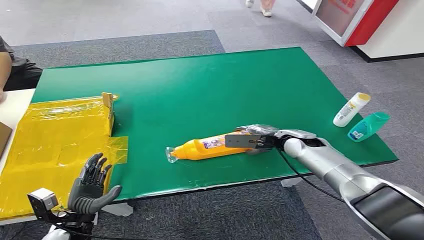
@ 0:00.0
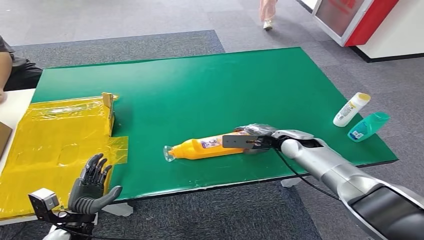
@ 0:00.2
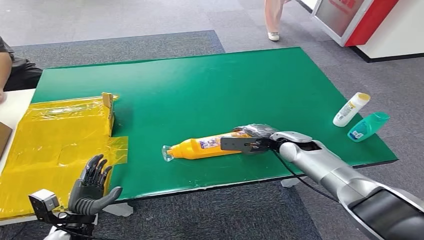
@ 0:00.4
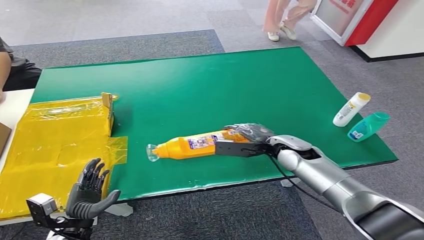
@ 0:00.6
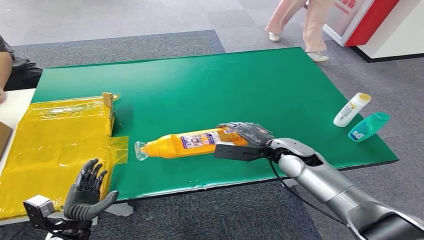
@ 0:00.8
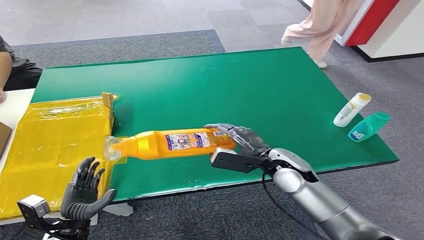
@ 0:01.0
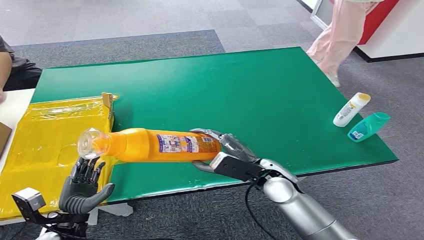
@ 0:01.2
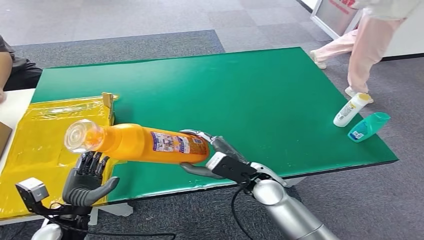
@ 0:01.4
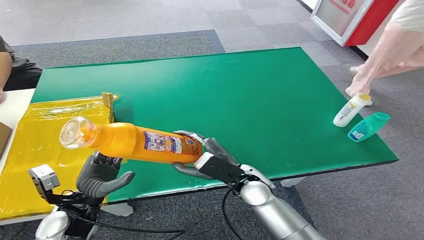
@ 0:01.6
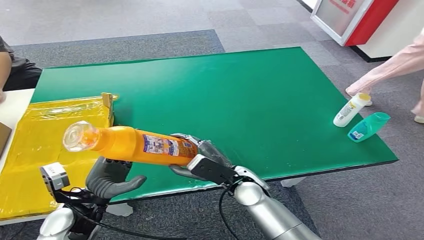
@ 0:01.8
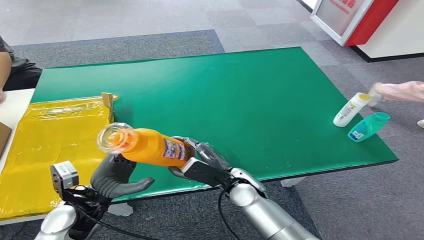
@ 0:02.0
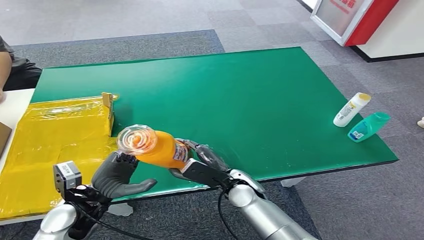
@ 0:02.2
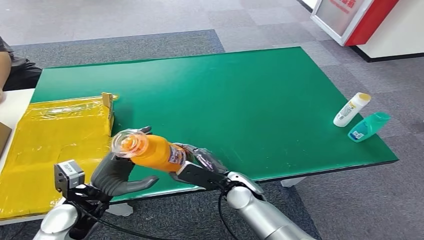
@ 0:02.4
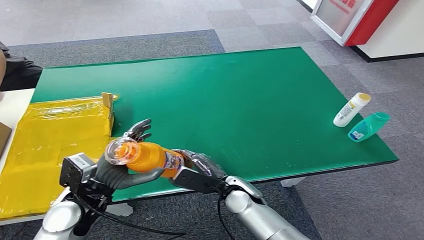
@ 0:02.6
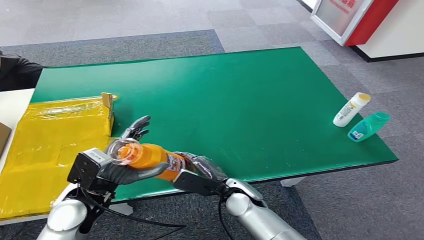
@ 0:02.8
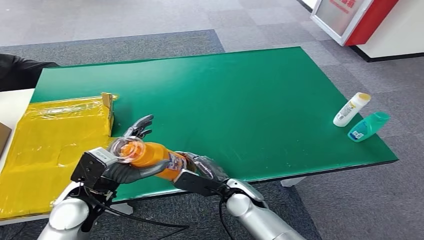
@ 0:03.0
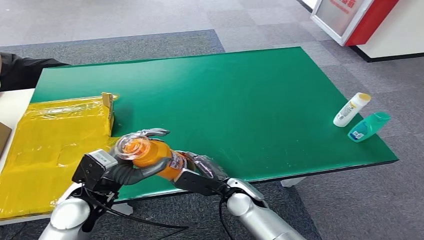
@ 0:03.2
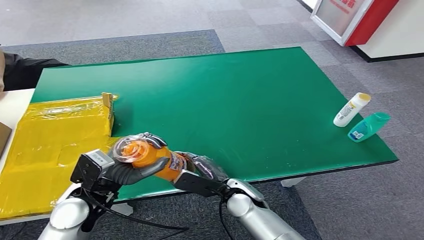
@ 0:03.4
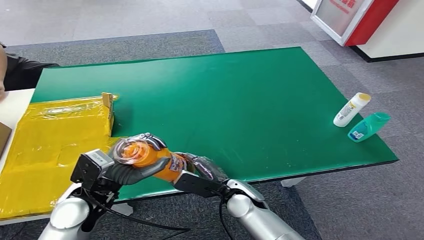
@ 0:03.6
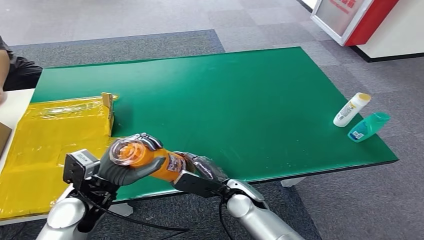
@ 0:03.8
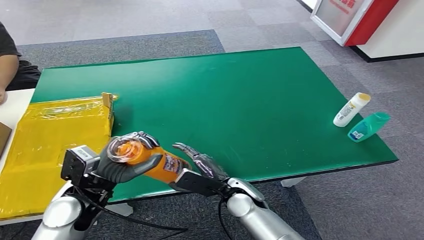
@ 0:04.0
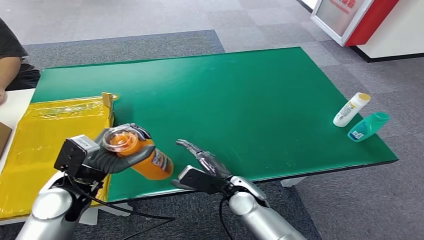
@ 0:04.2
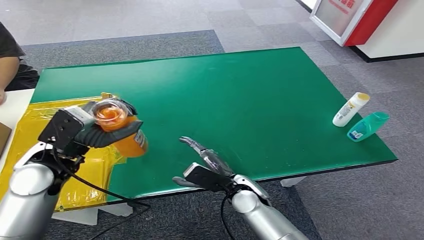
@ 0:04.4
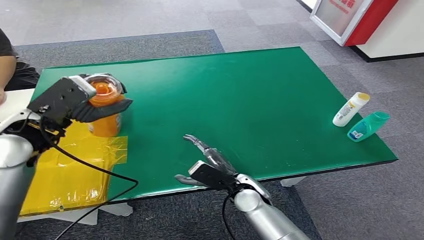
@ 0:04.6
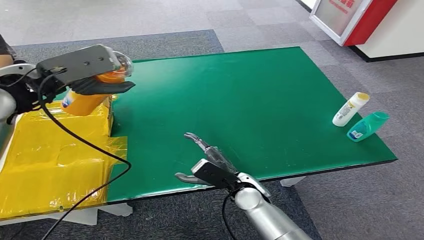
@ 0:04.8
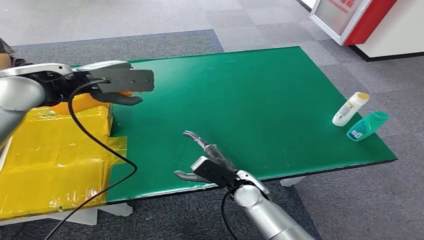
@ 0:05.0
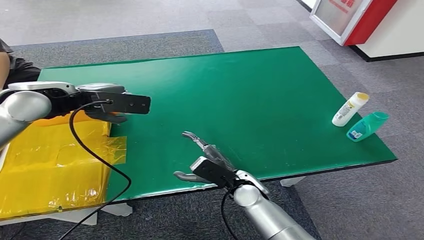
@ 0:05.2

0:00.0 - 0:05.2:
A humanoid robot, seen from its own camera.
Step, 0:00.0 - 0:01.2: Pick up the bottle from the table.
Step, 0:01.4 - 0:05.2: Turn the bottle to the front side.
0:01.8 - 0:03.4: The left hand travels upward by roughly 5 cm, while the right hand changes place by roughly 5 cm.
0:03.4 - 0:05.2: The left hand is displaced upward and forward by approximately 25 cm.

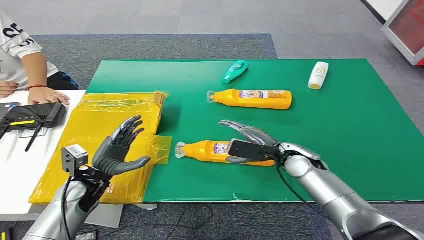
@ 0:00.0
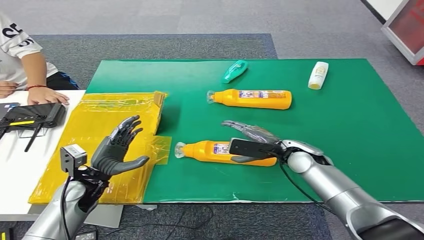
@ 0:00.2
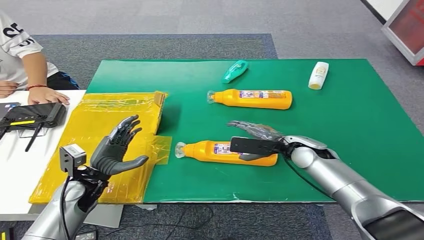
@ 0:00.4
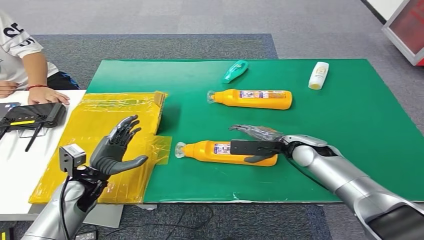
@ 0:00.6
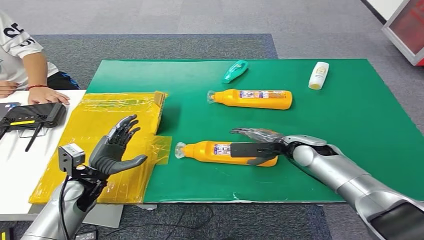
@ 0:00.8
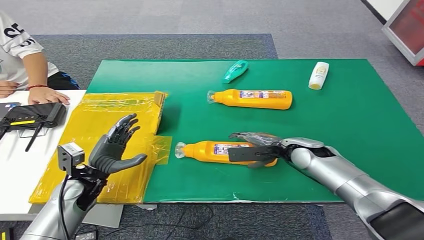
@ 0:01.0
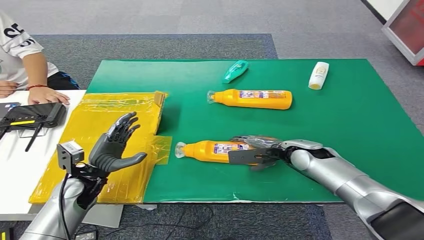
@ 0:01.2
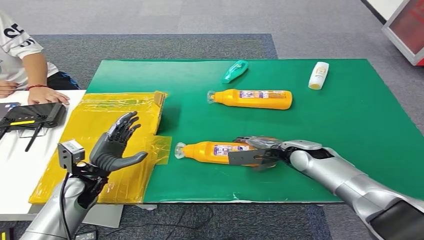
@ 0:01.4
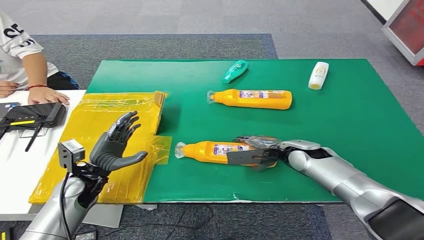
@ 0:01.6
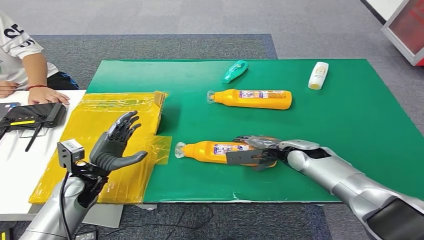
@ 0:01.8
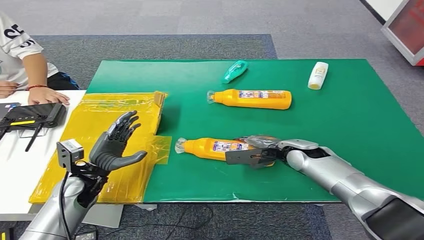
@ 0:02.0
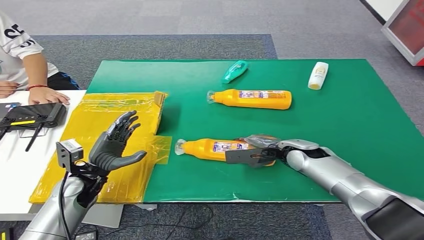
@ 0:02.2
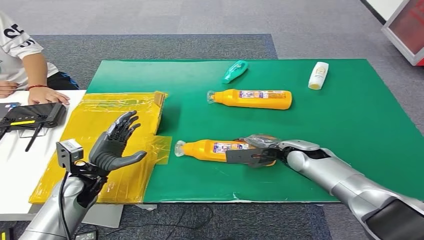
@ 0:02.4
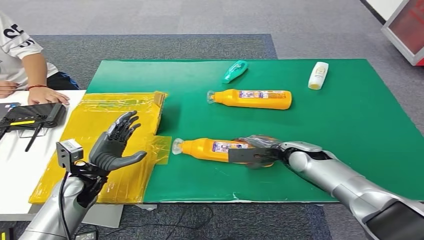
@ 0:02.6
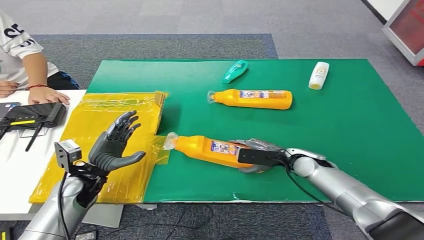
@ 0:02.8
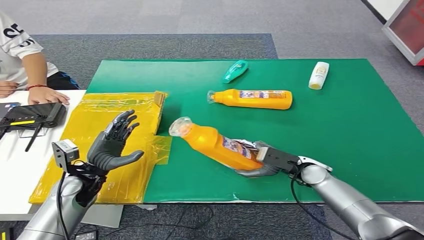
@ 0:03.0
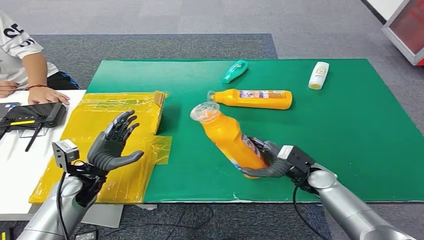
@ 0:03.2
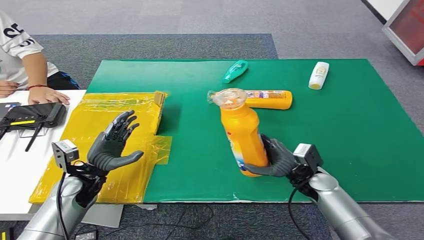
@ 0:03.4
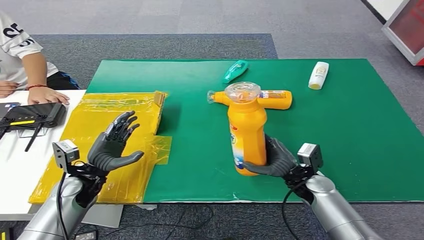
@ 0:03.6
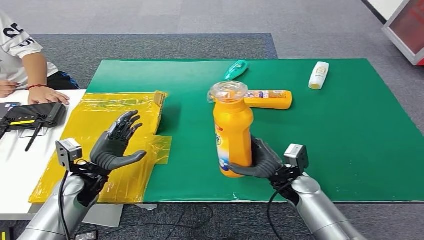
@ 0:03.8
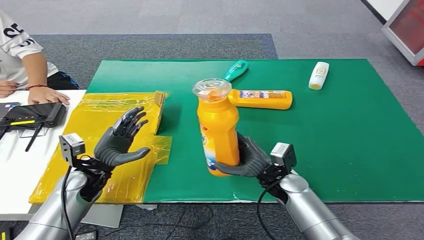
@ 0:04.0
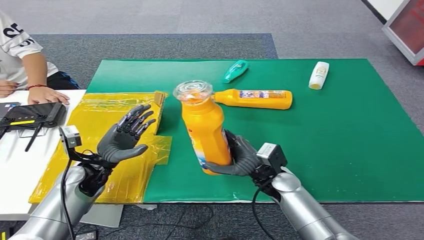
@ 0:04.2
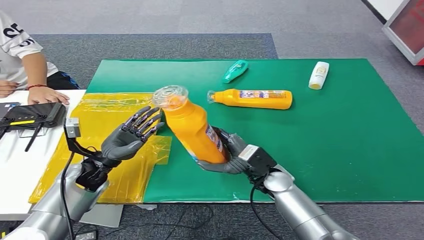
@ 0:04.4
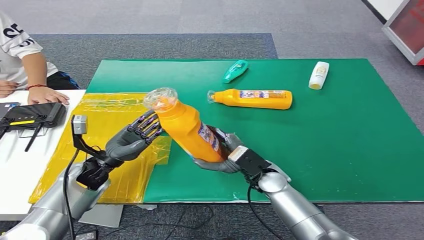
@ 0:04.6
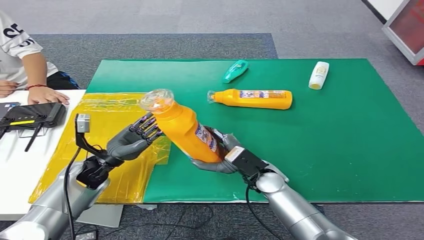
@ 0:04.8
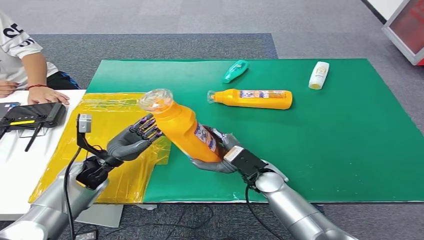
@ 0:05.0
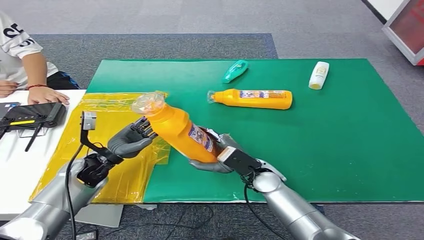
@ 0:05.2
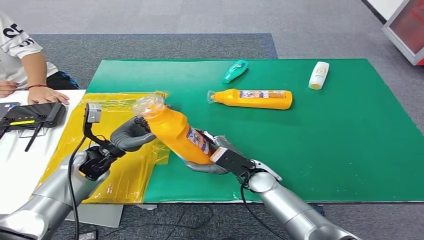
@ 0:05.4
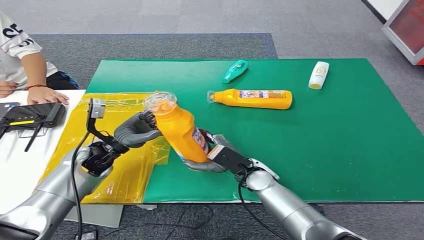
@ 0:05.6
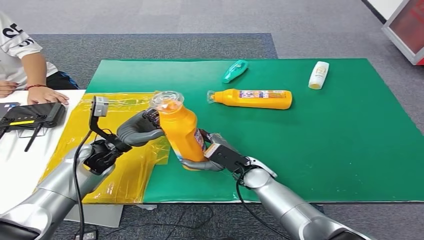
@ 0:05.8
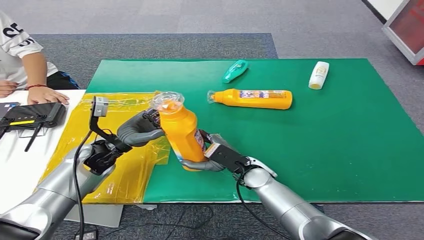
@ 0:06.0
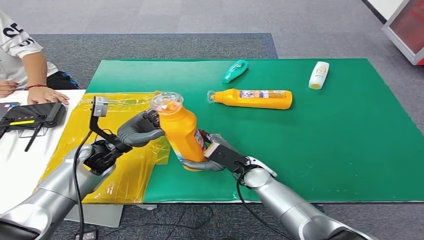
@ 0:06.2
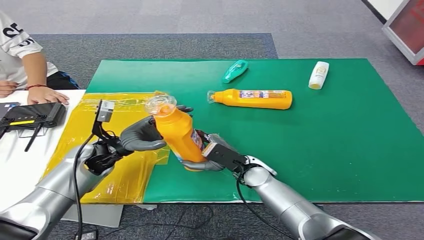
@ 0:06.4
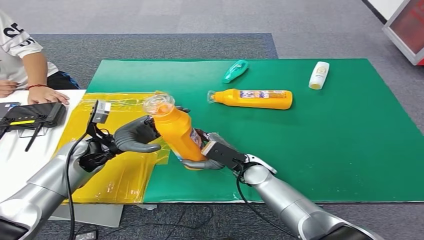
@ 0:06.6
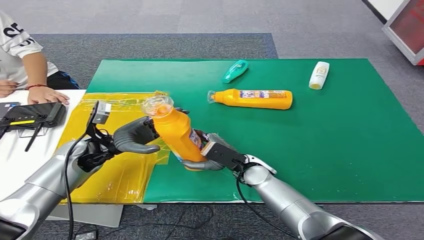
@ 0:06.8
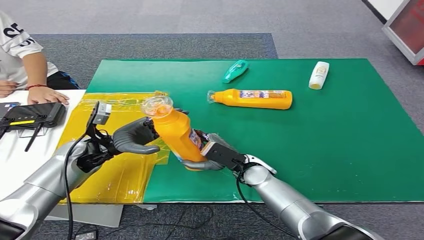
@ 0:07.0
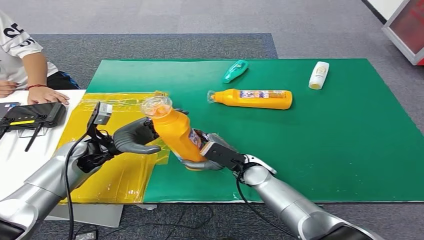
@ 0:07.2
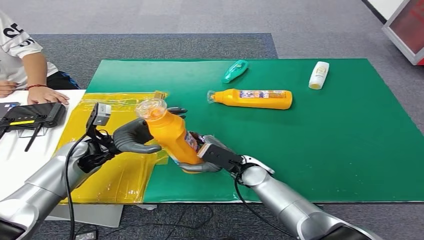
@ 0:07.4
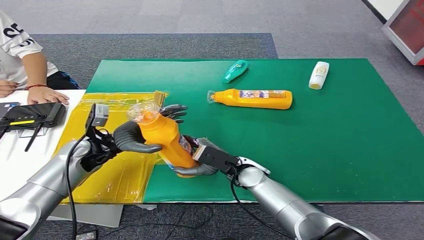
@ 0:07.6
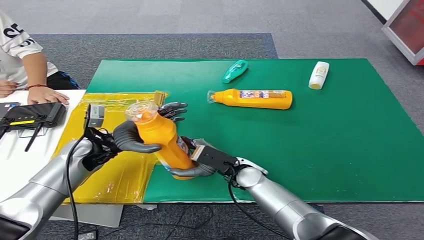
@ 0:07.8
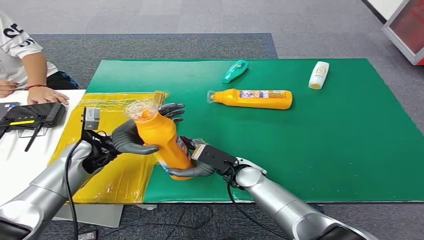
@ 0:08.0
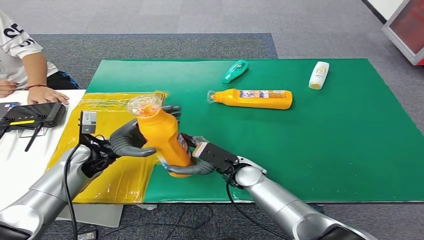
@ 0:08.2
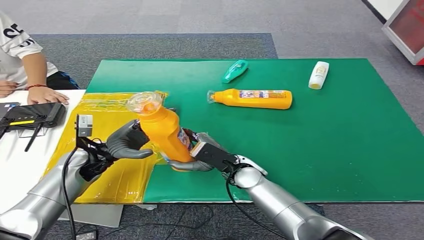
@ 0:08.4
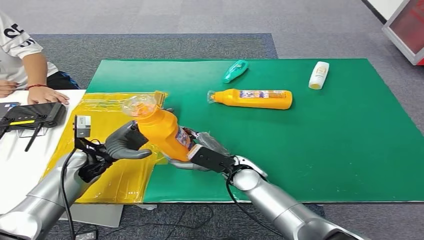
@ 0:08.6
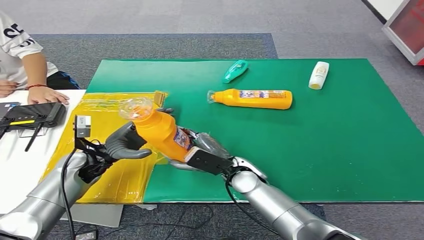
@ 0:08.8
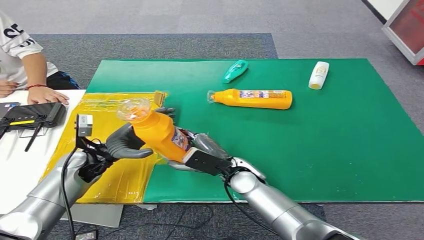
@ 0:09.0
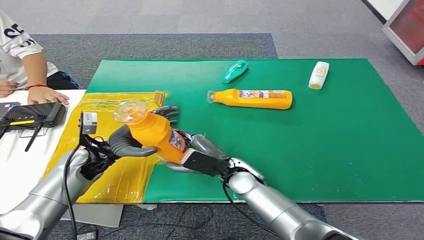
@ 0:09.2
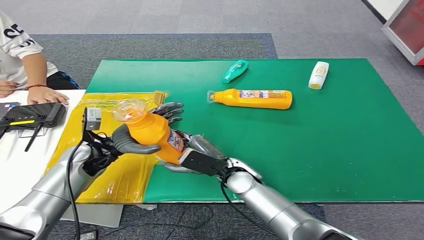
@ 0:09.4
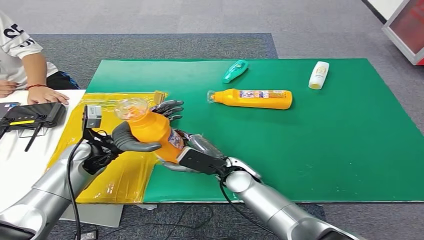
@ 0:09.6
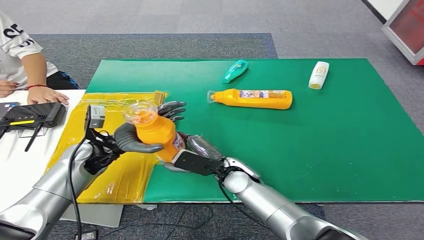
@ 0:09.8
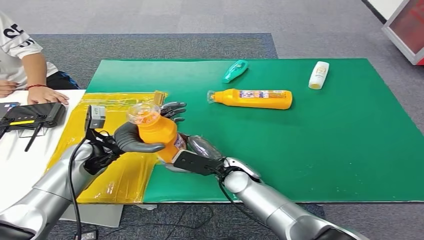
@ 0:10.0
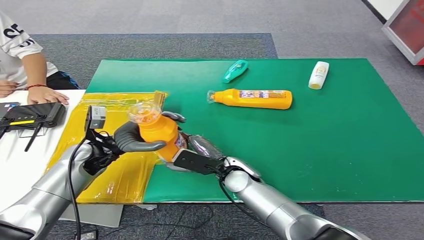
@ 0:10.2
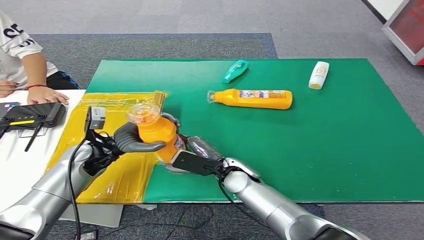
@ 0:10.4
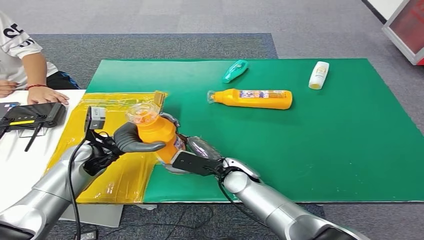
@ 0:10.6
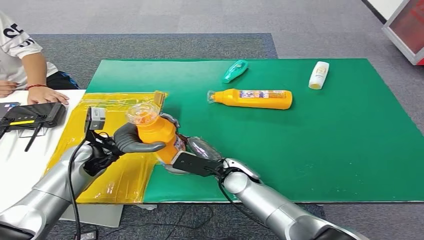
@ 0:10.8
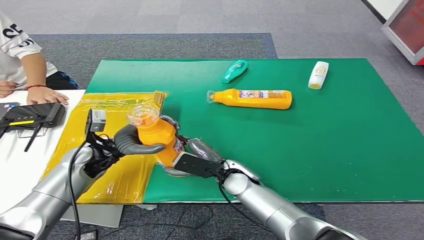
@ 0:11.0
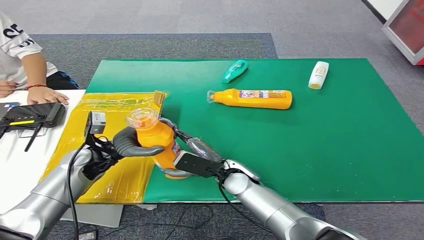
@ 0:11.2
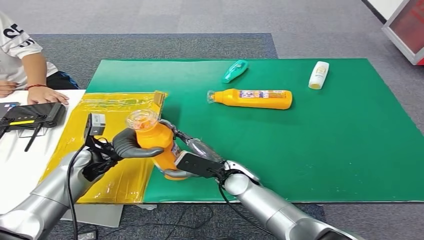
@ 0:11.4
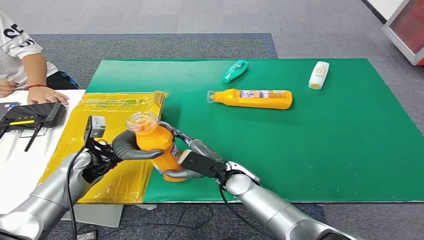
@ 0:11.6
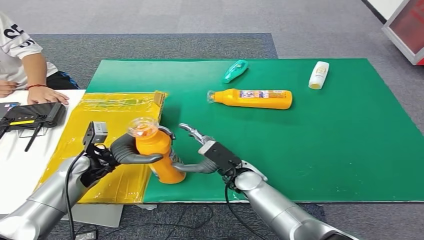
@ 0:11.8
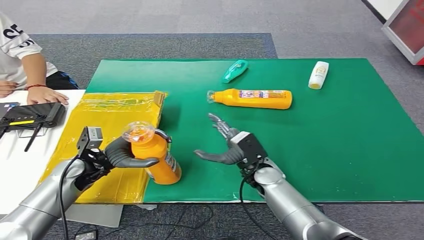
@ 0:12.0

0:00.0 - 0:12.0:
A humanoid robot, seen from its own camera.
Step, 0:00.0 - 0:03.6: Pick up the bottle from the table.
0:01.6 - 0:03.0: The right hand ends up roughly 5 cm from where it was.
0:03.0 - 0:04.4: The right hand heads to the left, covering some 10 cm.
0:04.4 - 0:06.0: The left hand changes place by approximately 5 cm.
0:06.0 - 0:10.4: The hands stay close to where they were, moving slightly.
0:10.4 - 0:12.0: The right hand is displaced to the right by roughly 5 cm. Meanwhile the left hand moves roughly 5 cm.
